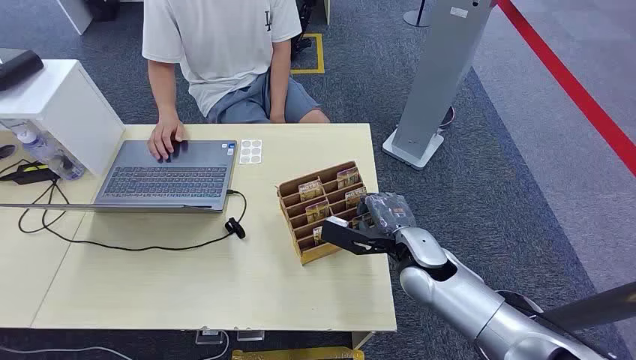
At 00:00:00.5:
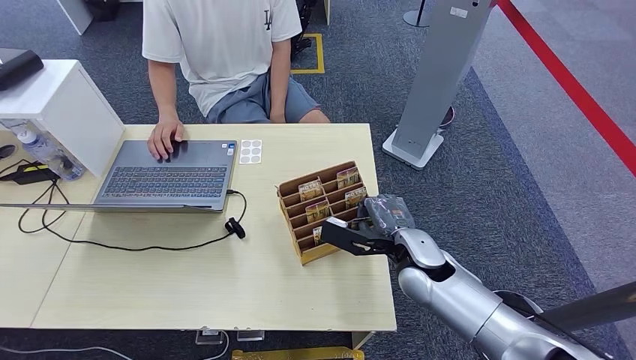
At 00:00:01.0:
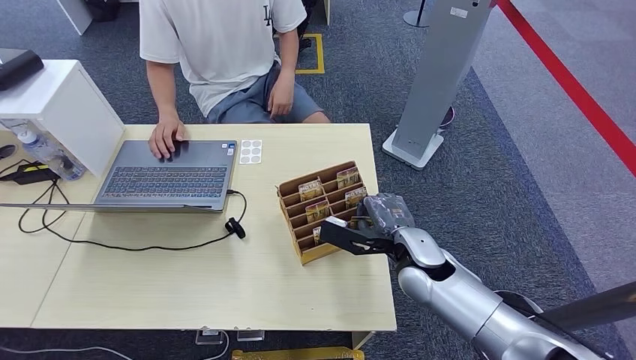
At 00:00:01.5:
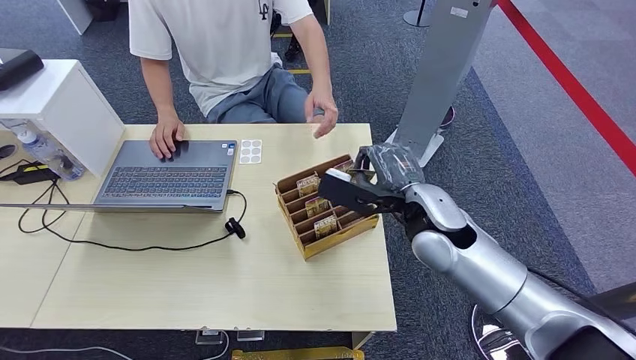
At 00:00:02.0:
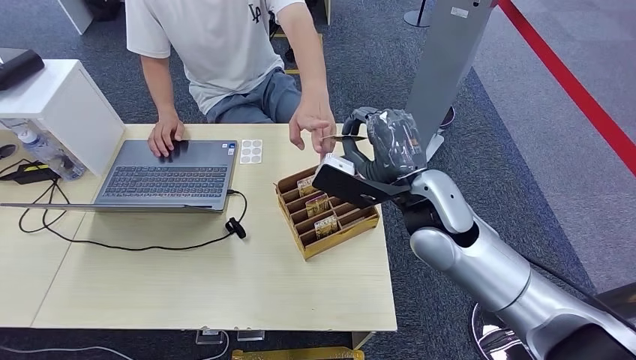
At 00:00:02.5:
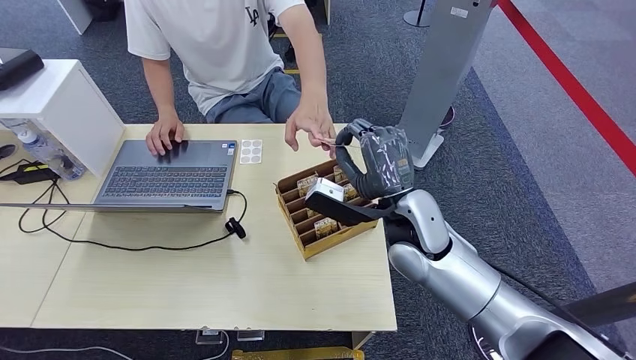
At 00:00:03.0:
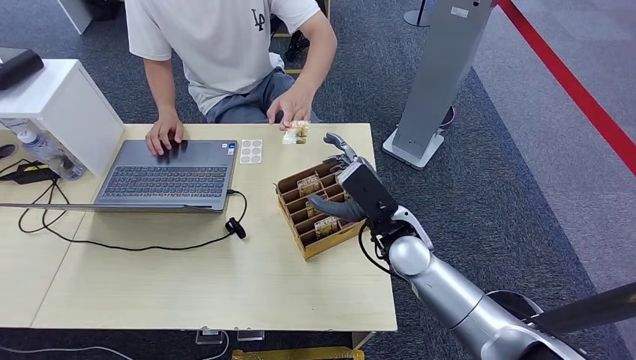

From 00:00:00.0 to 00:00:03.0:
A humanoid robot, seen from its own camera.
Step, from 00:00:00.0 to 00:00:01.5: Pick up the room card from the card holder.
Step, from 00:00:02.0 to 00:00:03.0: Hand the room card to the target.
From 00:00:01.5 to 00:00:03.0: The right hand moves downward, roughly 20 cm.
